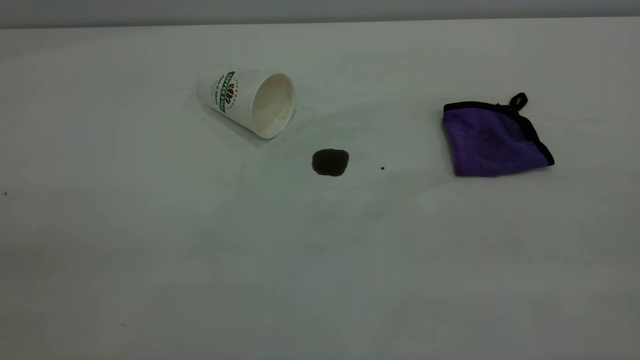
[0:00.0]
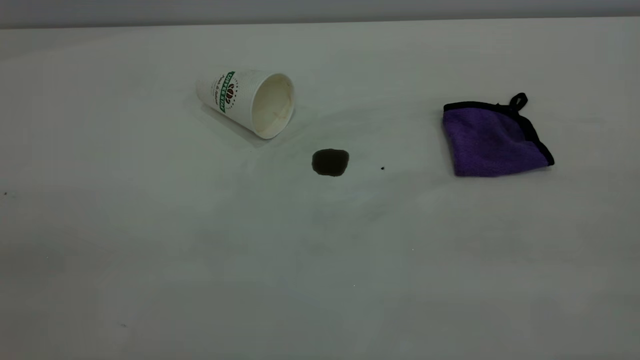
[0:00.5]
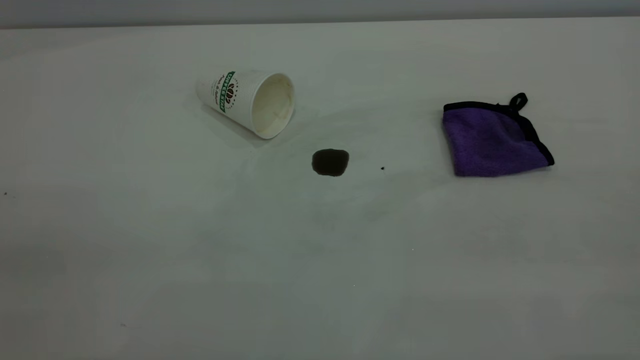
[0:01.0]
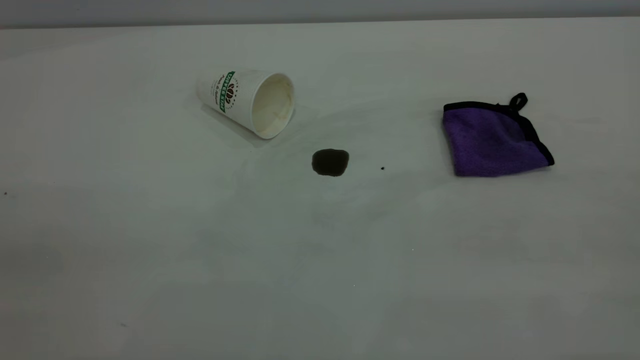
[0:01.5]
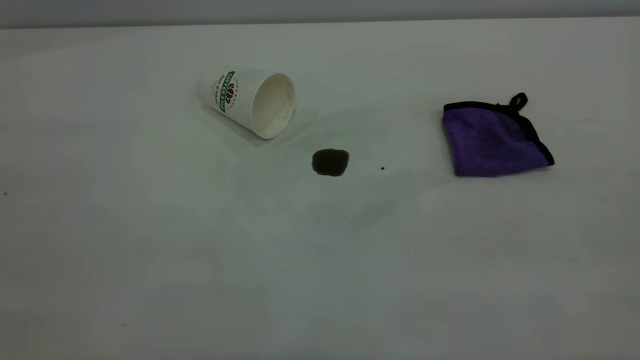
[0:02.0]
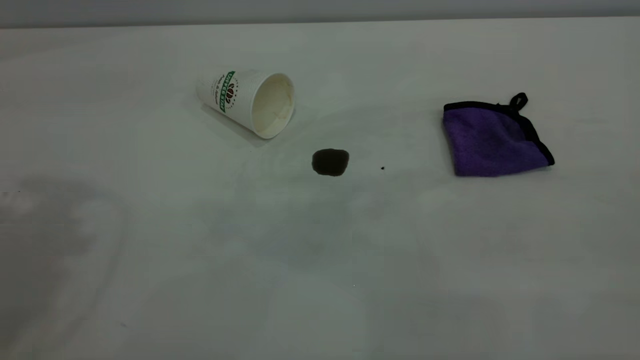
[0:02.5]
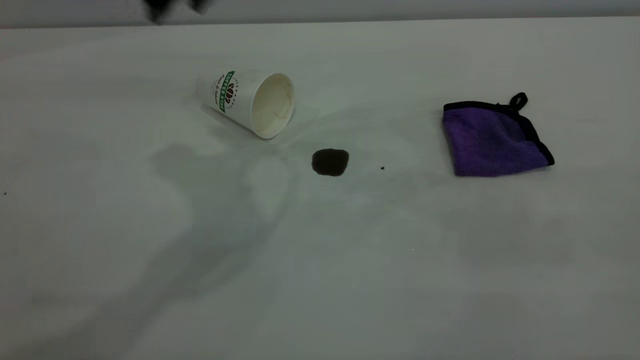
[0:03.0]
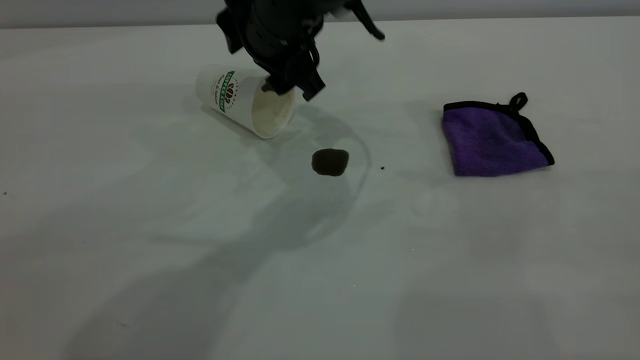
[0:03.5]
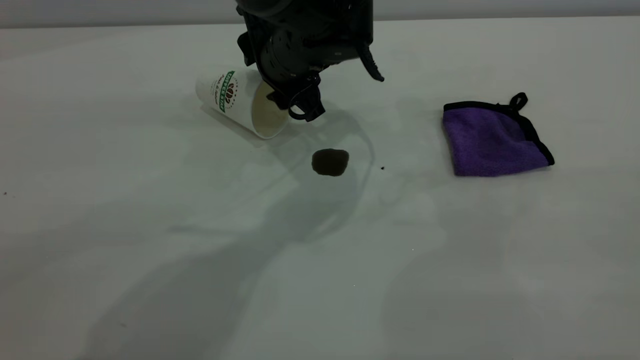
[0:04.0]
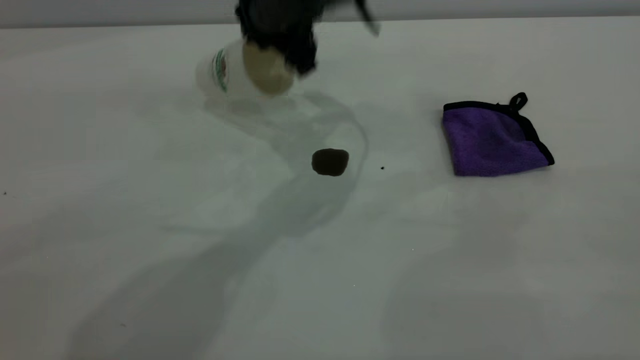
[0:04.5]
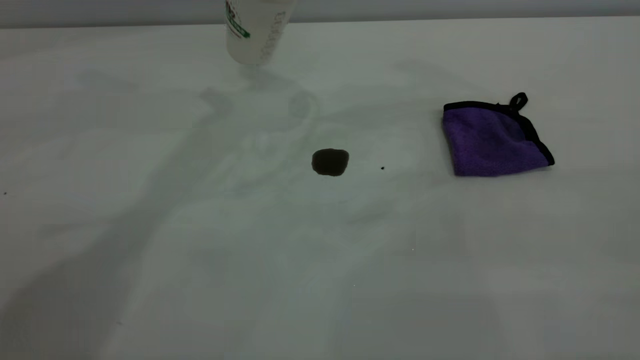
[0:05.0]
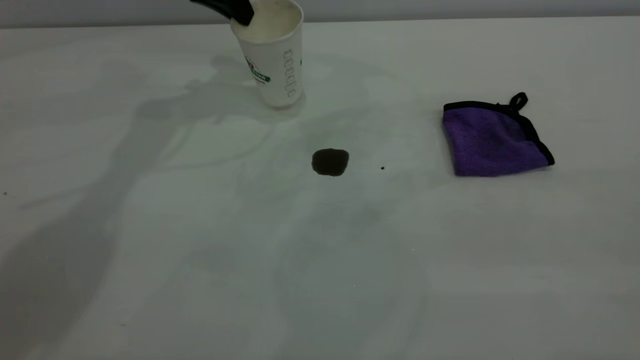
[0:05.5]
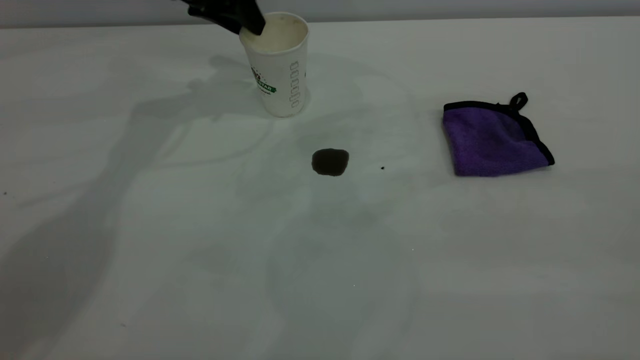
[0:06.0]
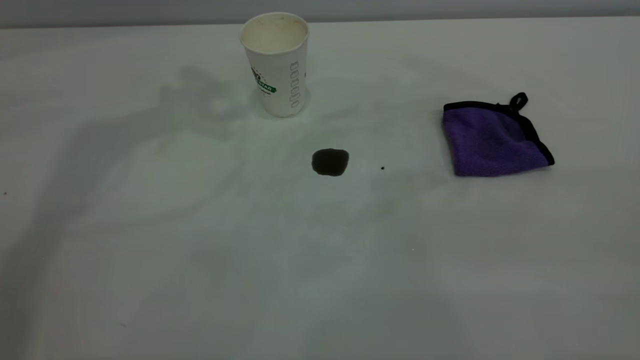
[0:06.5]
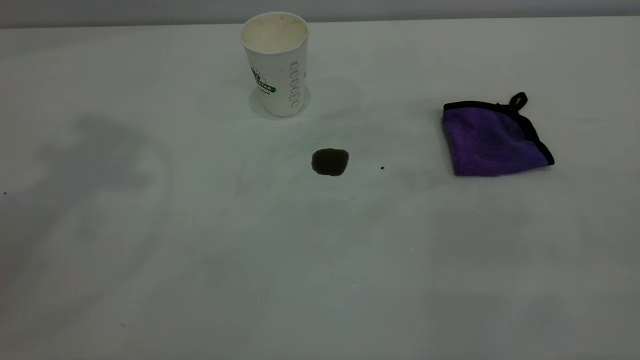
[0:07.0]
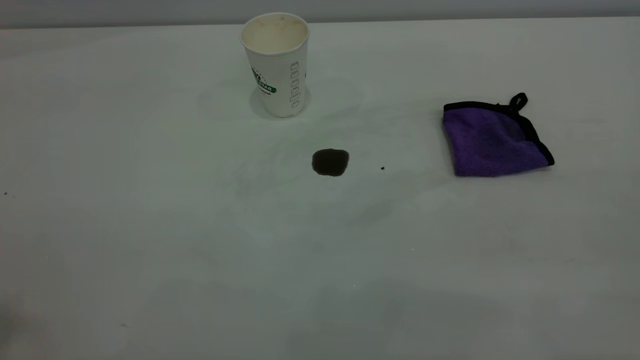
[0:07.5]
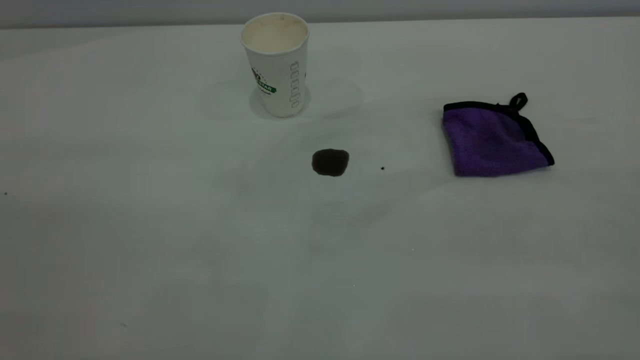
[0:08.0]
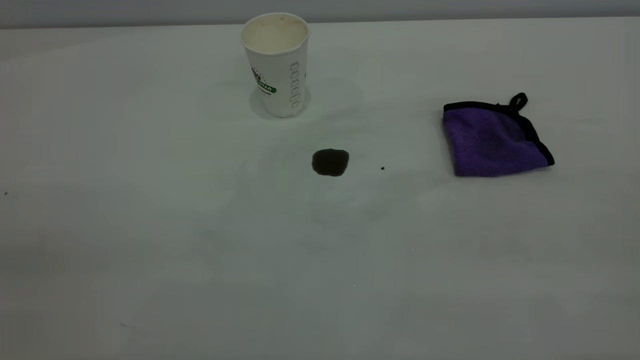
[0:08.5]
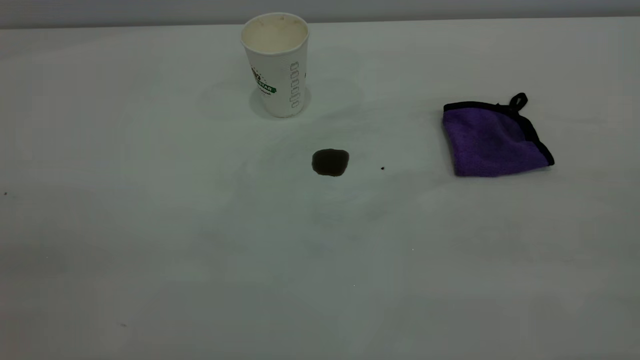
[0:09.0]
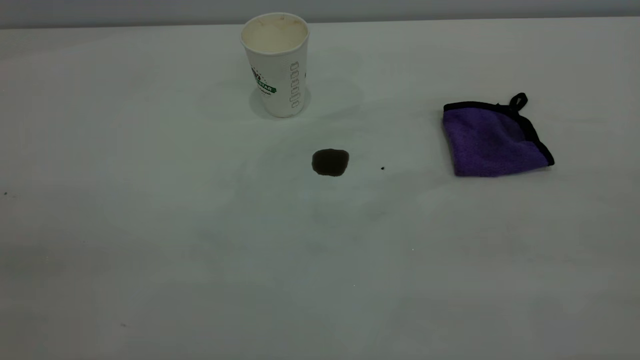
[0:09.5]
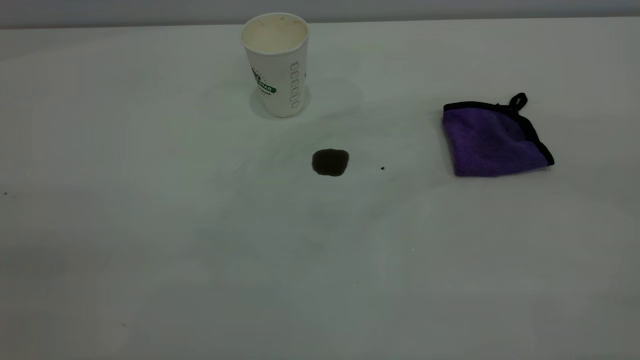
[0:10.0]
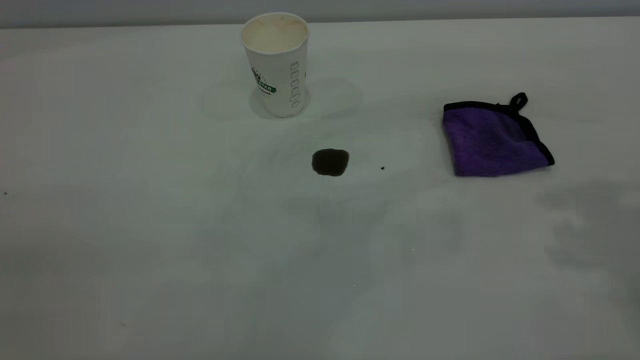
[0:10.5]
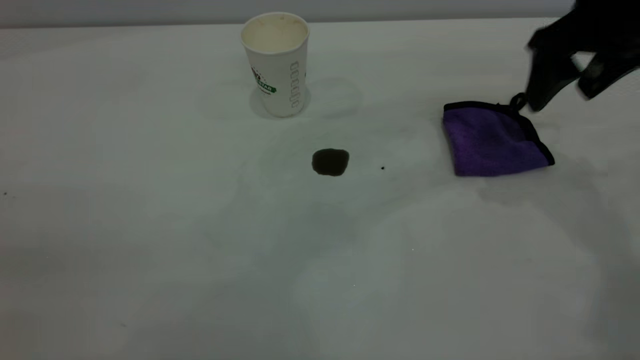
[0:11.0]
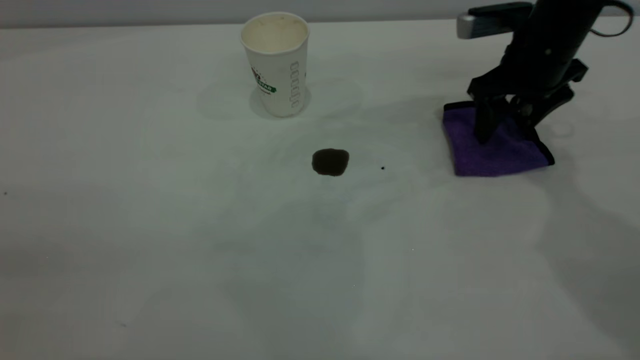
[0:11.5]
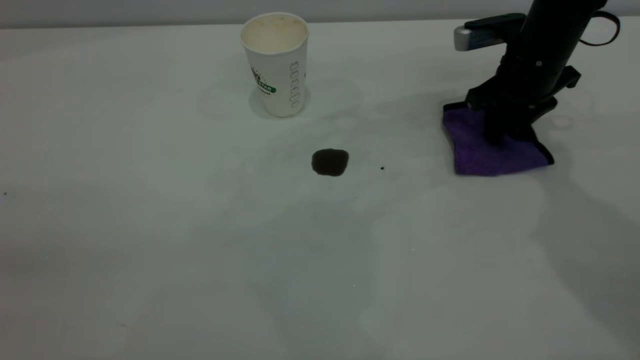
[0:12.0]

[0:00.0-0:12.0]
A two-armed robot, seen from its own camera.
Task of the whole recording: the left gripper pick up the fallen cup and place it upright, the right gripper grasp the purple rag and wipe the coffee stain on the table, the right gripper put the purple rag back in its original position.
Step, 0:00.0 to 0:06.0: Stand the paper cup upright.
0:02.0 to 0:04.0: The left gripper is displaced forward, to the right and downward by approximately 50 cm.
0:04.0 to 0:06.0: The left gripper goes about 20 cm to the left, forward and upward, and closes, then opens again.
0:06.0 to 0:08.0: The left gripper travels backward and upward by roughly 50 cm.
0:10.0 to 0:12.0: The right gripper shifts some 50 cm forward and downward, and closes.

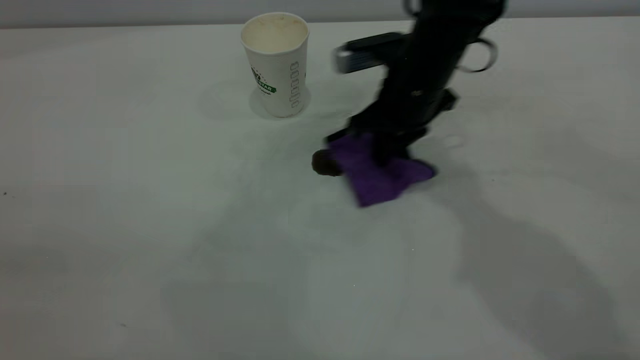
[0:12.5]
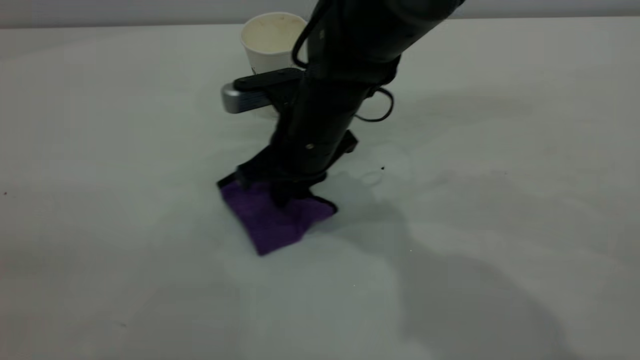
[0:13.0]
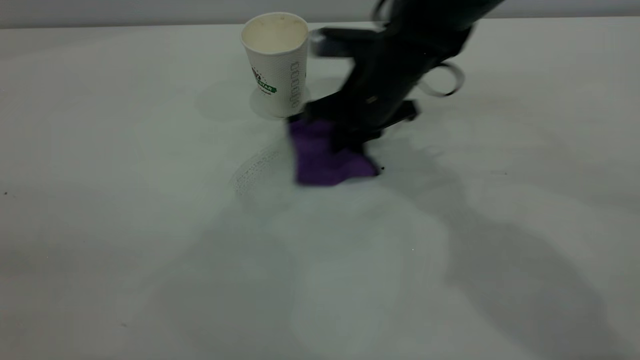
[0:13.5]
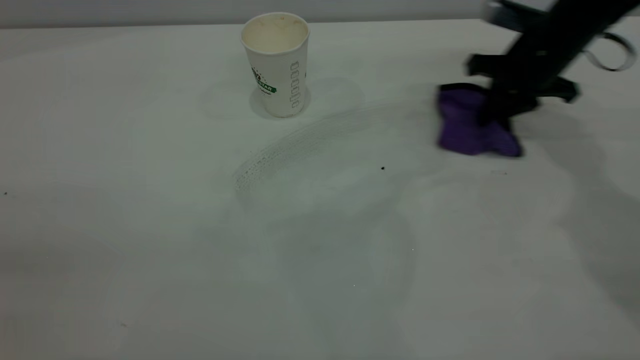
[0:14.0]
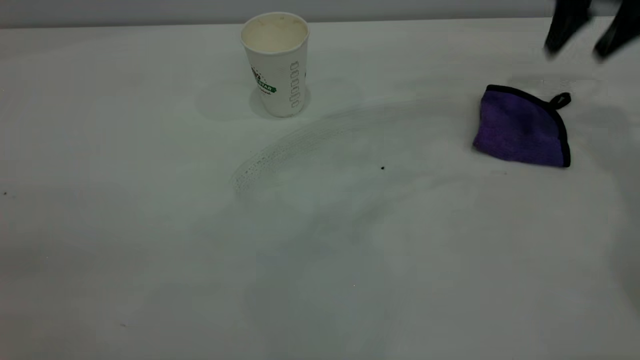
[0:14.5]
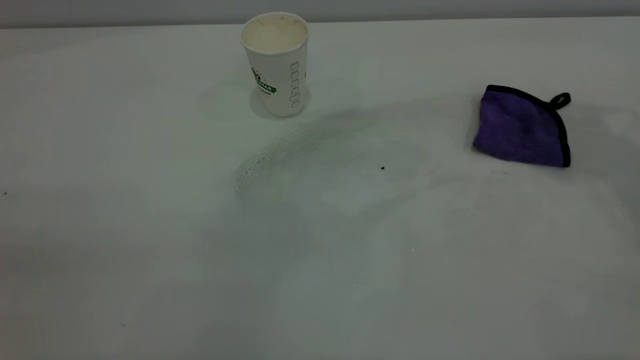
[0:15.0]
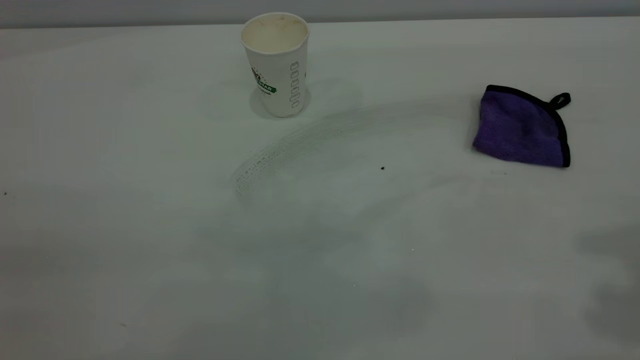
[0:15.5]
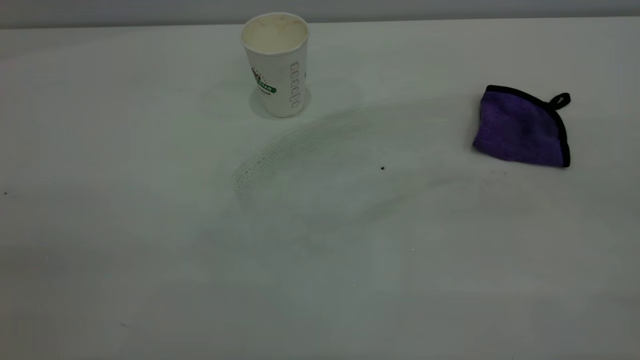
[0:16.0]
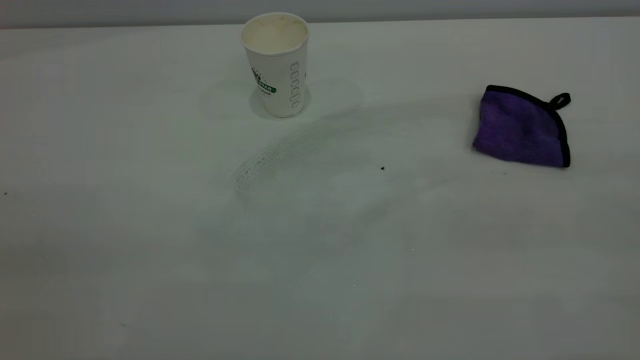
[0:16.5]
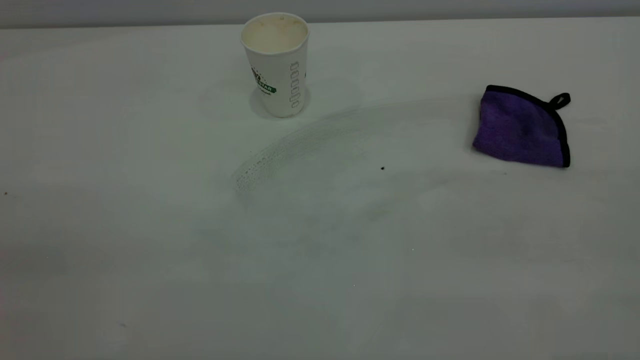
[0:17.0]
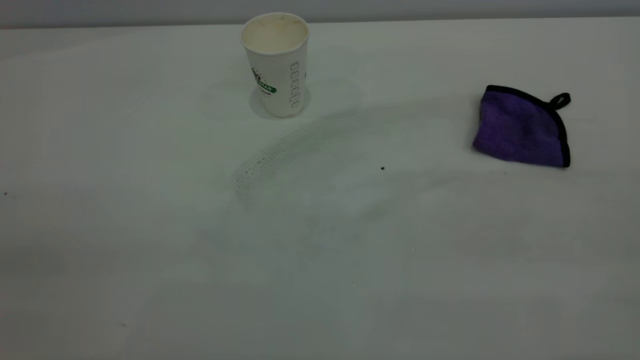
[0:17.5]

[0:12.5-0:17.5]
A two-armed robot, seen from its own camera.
Task of the whole recording: the left gripper pick up the fallen cup and place it upright, the right gripper grasp the purple rag and wipe the coffee stain on the table, the right gripper put the purple rag back in its original position.
0:12.5 to 0:15.0: The right gripper shifts about 40 cm upward and to the right, and opens its fingers.
